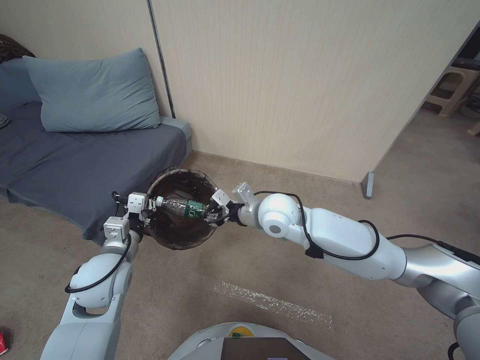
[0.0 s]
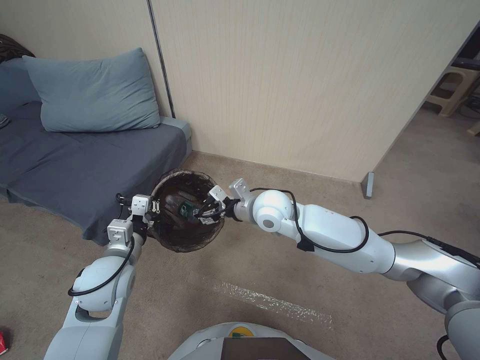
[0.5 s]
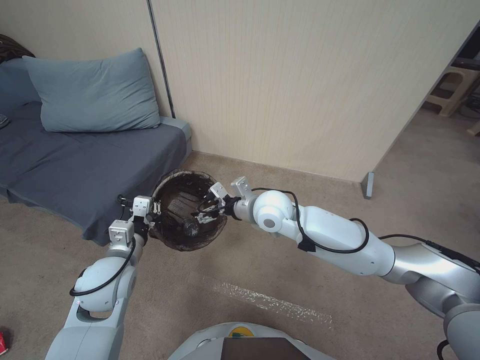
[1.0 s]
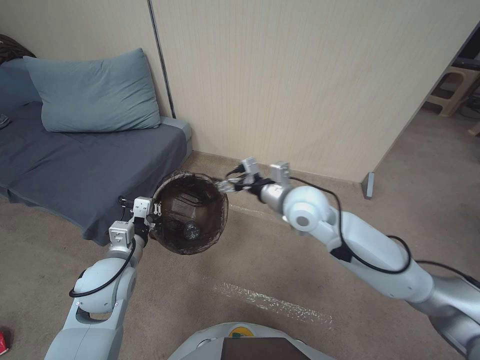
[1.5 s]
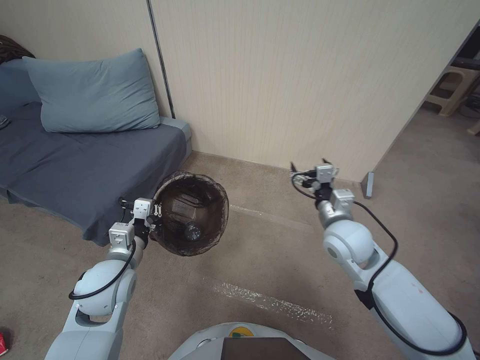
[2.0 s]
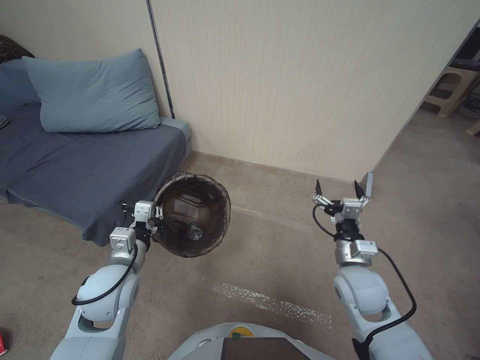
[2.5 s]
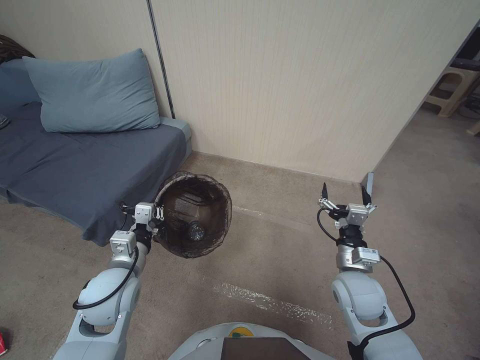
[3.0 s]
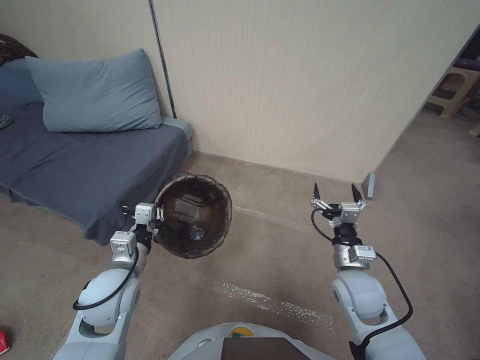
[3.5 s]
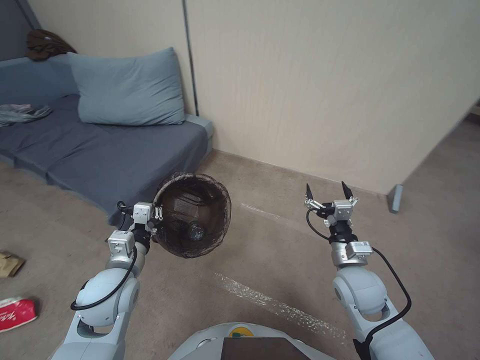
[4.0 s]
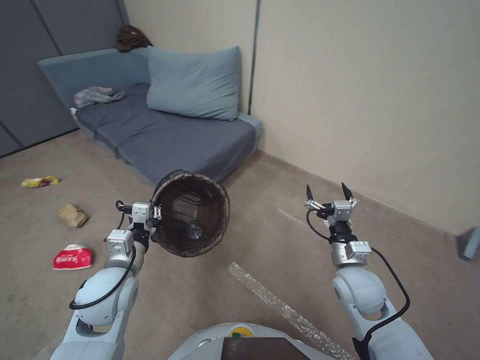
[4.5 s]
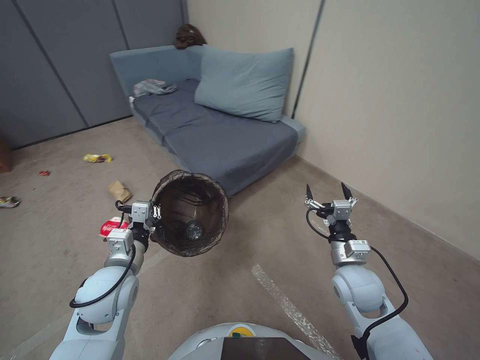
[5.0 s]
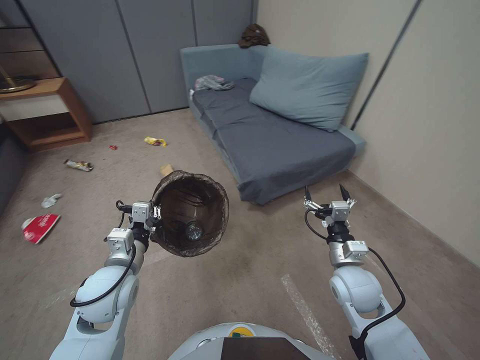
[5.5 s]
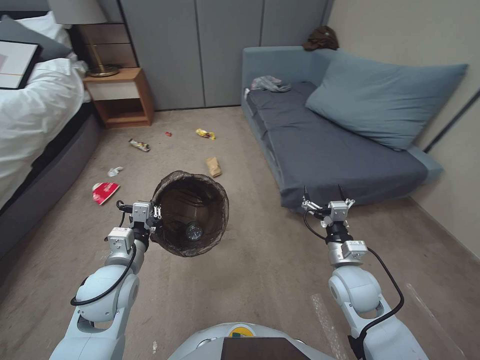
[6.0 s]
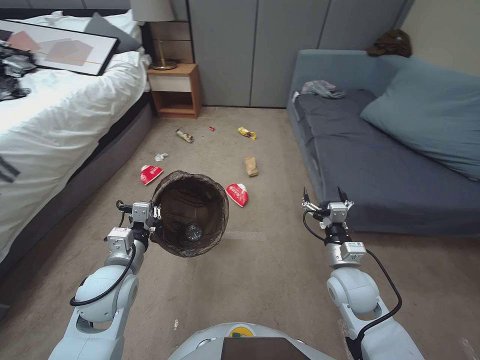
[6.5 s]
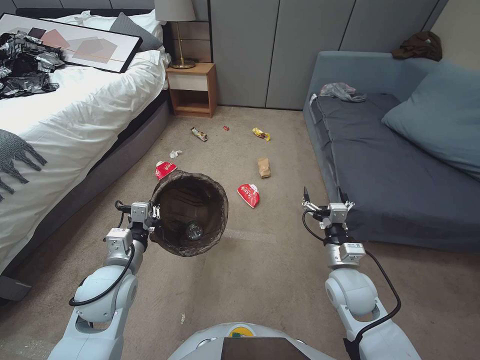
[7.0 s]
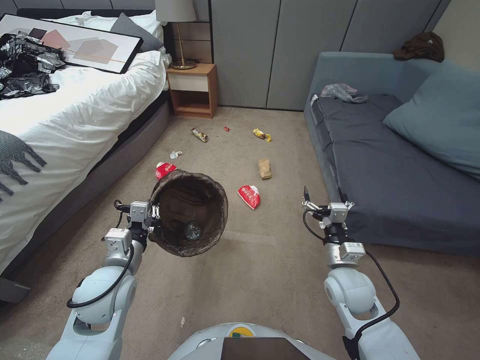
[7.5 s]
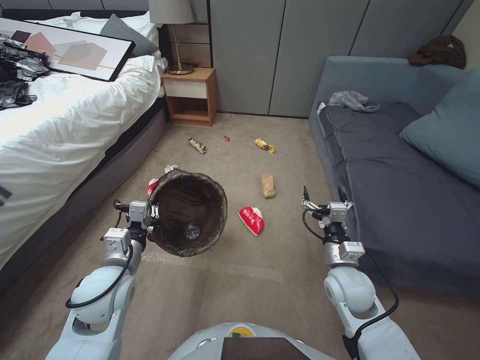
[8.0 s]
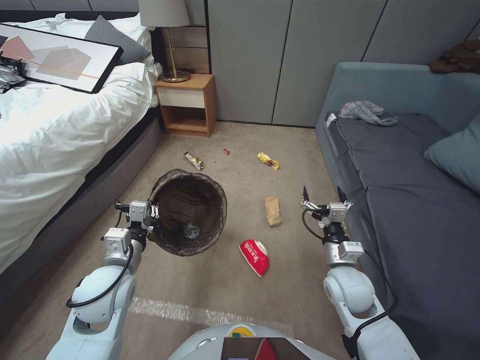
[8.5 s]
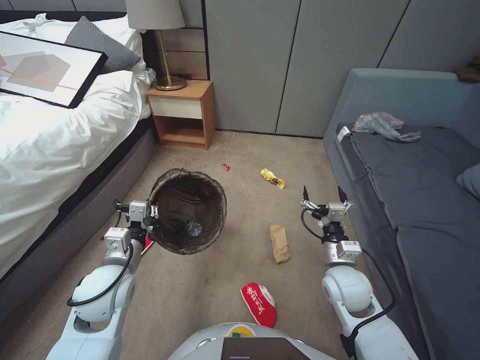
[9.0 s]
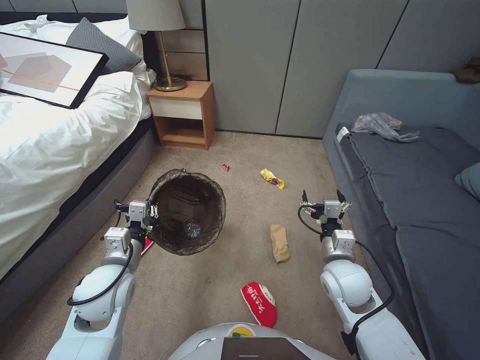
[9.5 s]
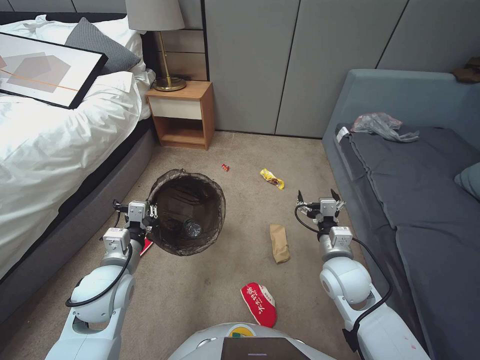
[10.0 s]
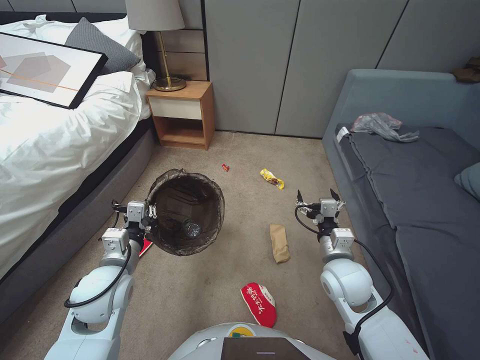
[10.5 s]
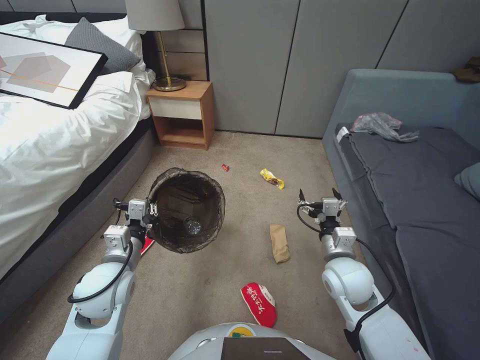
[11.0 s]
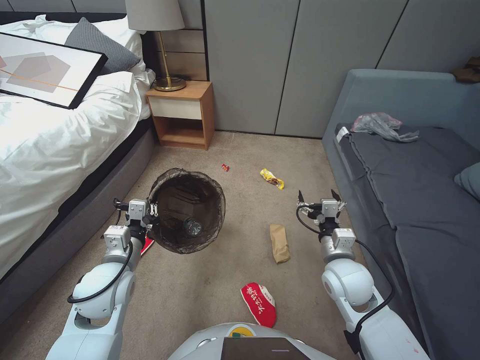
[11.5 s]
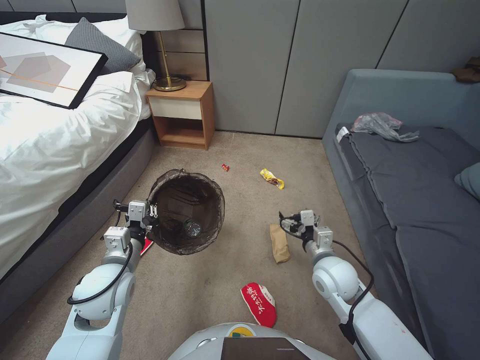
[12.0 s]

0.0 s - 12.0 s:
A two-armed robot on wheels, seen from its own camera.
Task of the whole recording: Pick up the trash bin, then pick up the garbage from the floor and place it into the trash bin.
0.0 s - 2.0 s: The right gripper moves to the right, approximately 15 cm, and opens.
2.0 s - 4.0 s: The right gripper goes about 10 cm downward and backward.
10.0 s - 12.0 s: Both grippers stay about where they are.

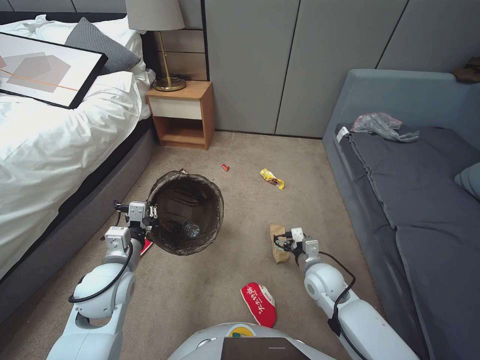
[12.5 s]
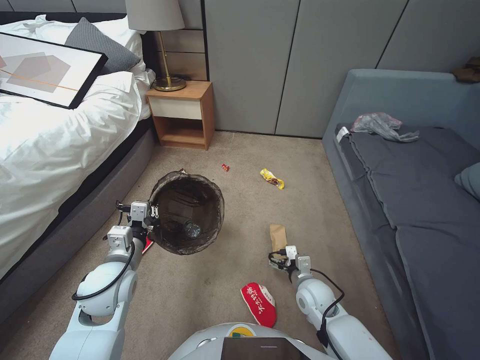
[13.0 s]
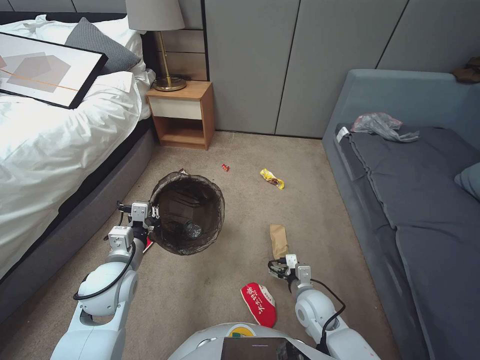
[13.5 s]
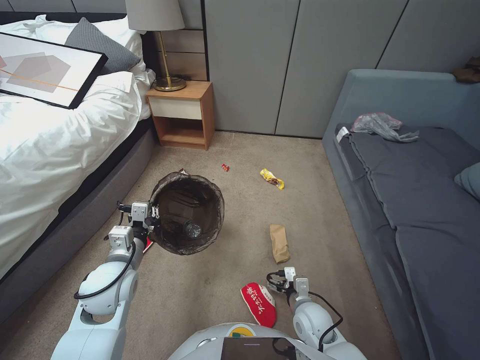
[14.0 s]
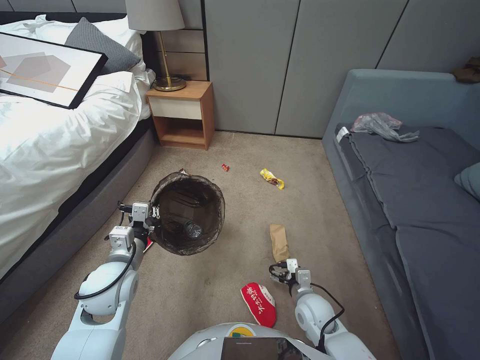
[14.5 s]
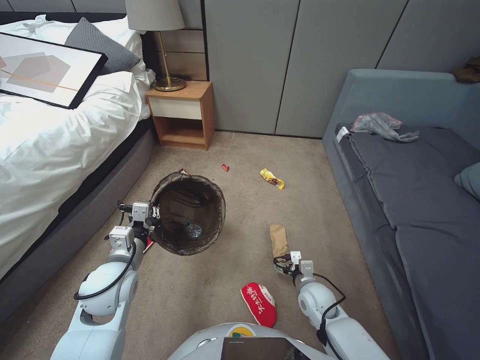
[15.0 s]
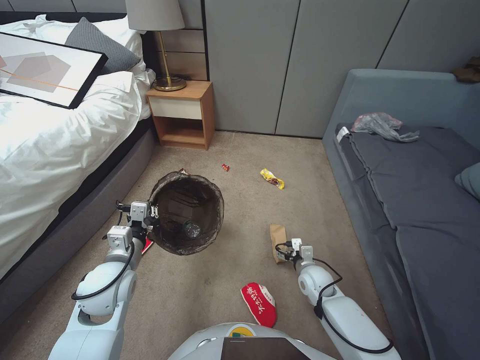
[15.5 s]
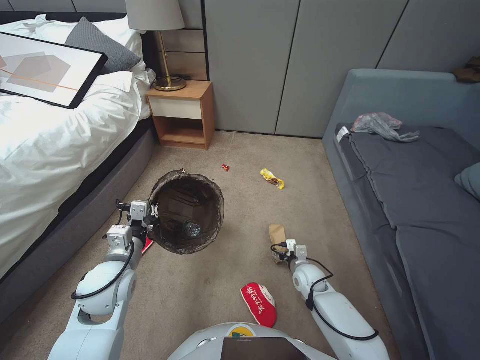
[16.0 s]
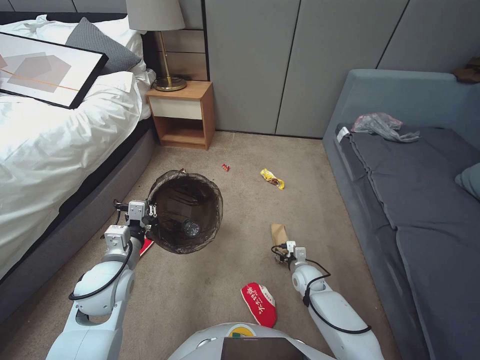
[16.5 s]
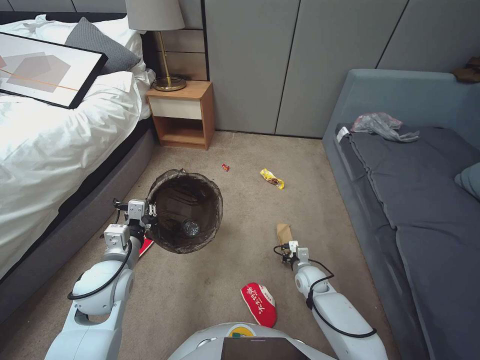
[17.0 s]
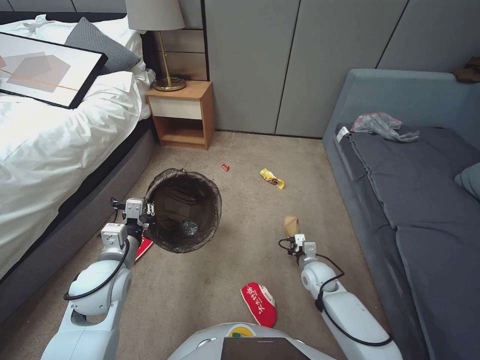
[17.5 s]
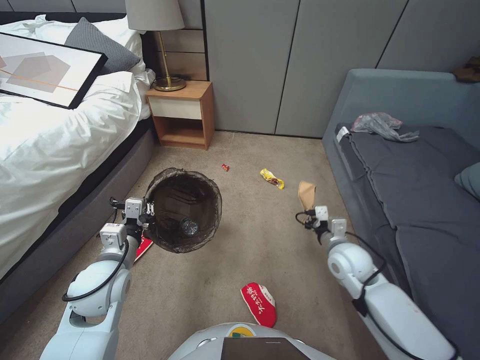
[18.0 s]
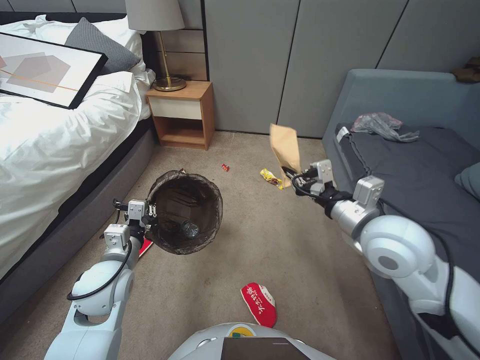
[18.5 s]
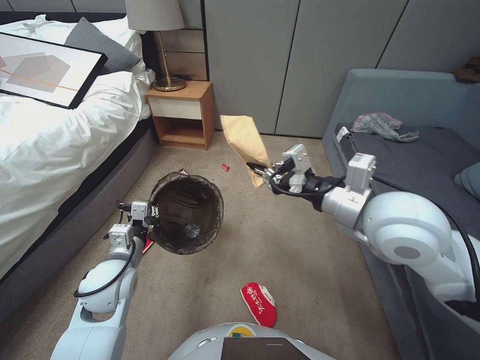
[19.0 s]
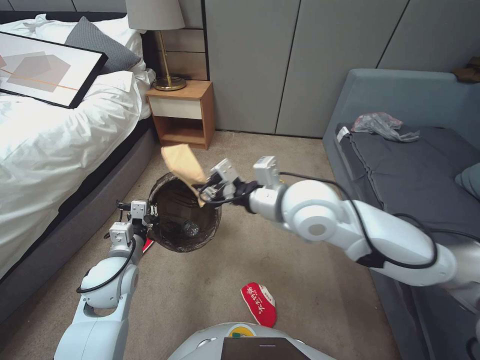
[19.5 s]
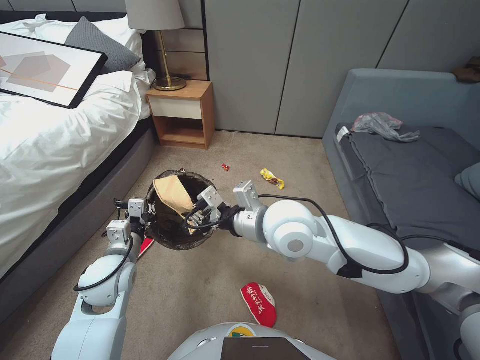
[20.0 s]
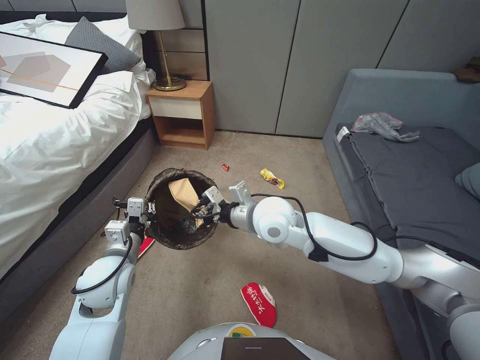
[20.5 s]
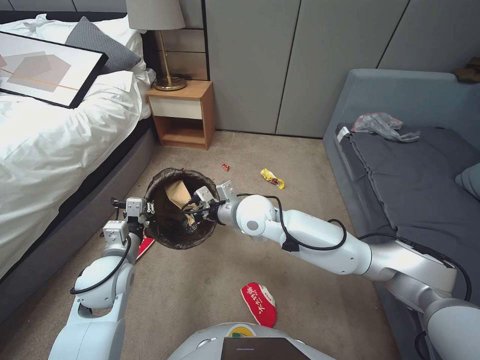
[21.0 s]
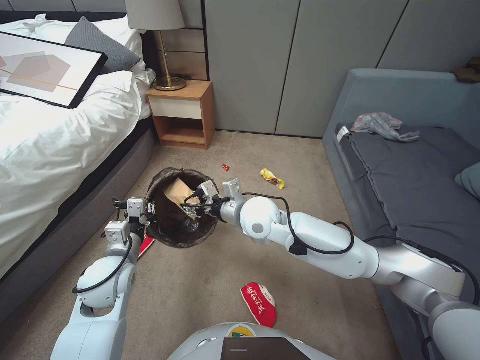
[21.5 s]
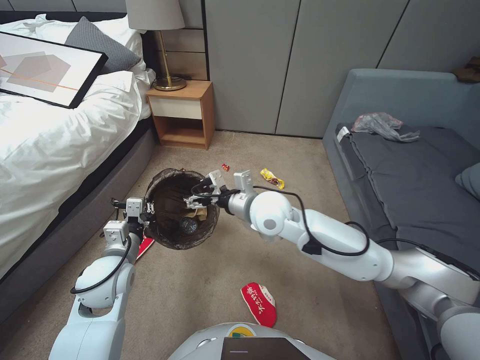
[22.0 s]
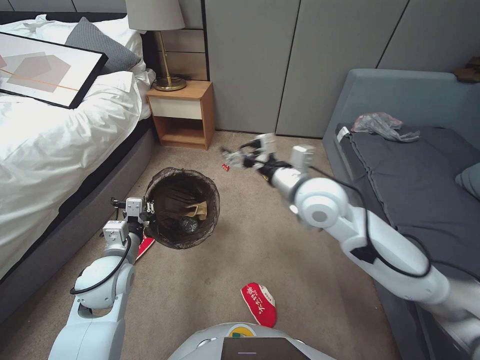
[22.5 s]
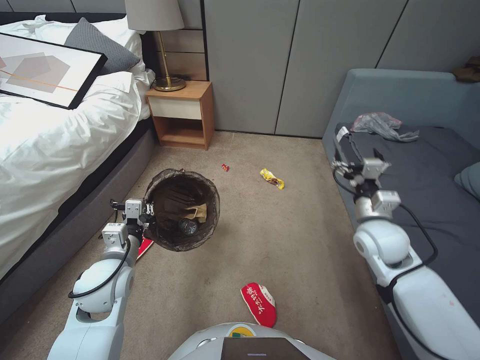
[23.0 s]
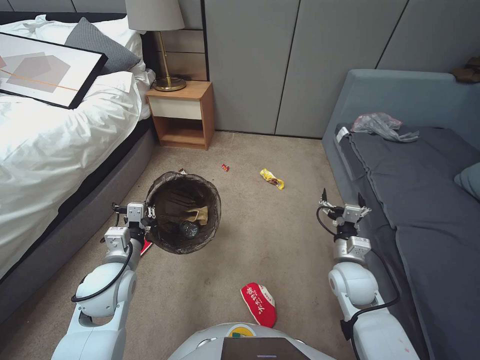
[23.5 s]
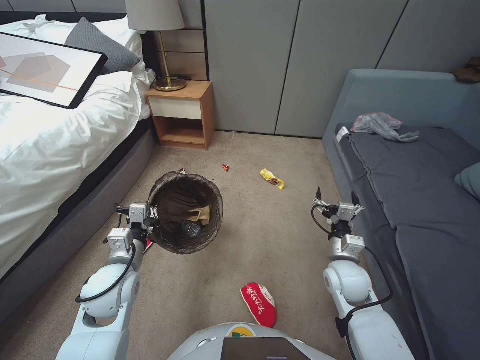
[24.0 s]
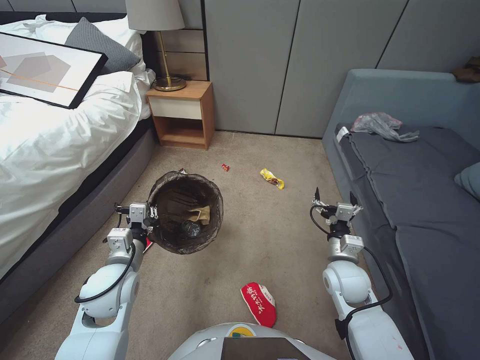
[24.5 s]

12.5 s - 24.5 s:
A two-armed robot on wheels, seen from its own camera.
Task of the whole recording: Pick up the trash bin, then pick up the garbage from the floor and place it into the trash bin.
12.5 s - 14.5 s: The right gripper shifts some 10 cm downward and backward.
14.5 s - 16.5 s: The right gripper heads forward and downward, covering about 15 cm.
16.5 s - 18.5 s: The right gripper heads upward, covering roughly 40 cm, and closes up.
18.5 s - 20.5 s: The right gripper goes approximately 20 cm to the left.
20.5 s - 22.5 s: The right gripper shifts about 10 cm to the right and upward, and opens up.
22.5 s - 24.5 s: The right gripper is displaced downward and to the right by some 25 cm.

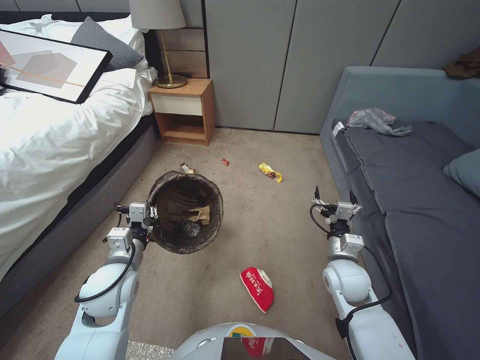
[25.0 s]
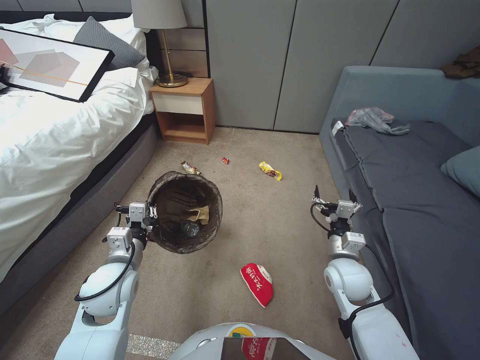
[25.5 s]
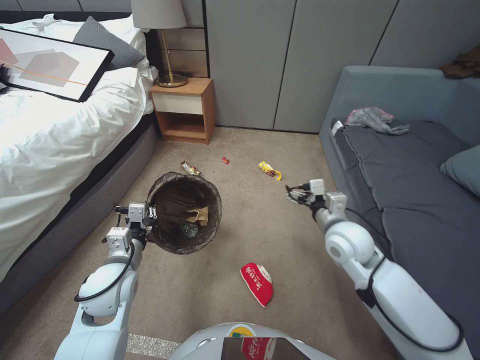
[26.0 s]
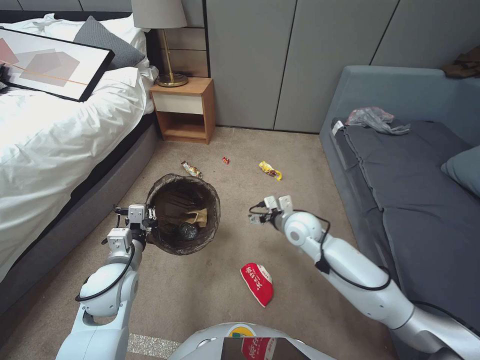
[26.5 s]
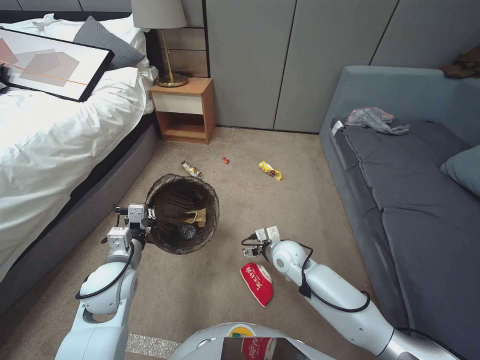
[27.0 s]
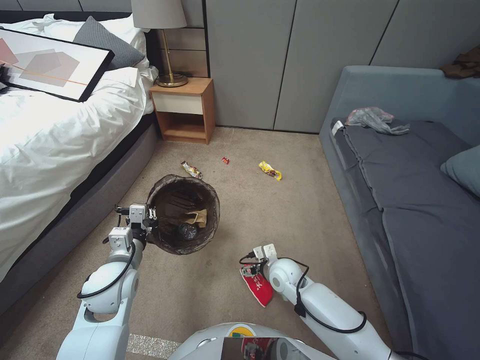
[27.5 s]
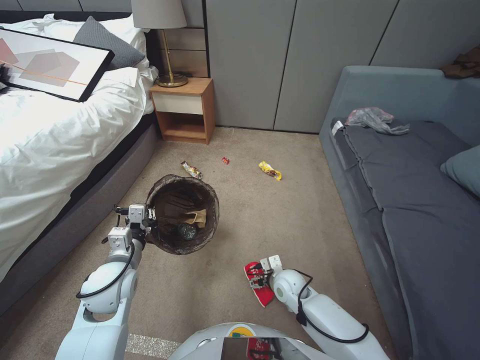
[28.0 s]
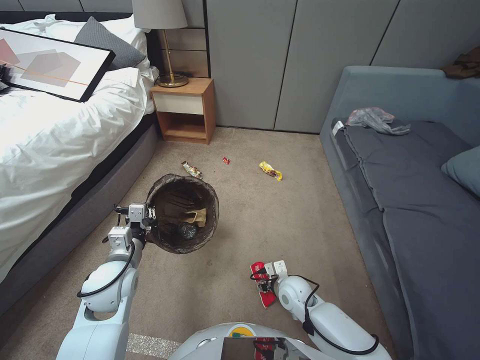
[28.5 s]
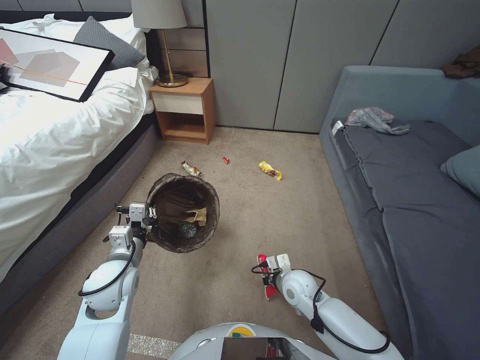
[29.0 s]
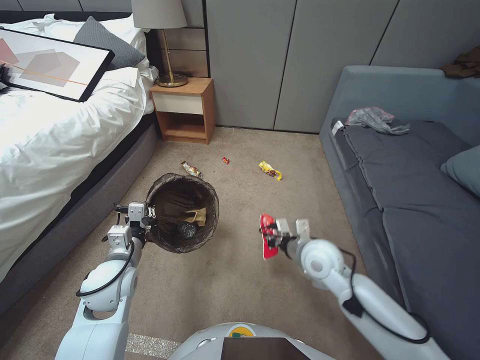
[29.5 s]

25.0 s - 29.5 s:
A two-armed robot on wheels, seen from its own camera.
Task of the whole recording: Pick up the trash bin, then pick up the garbage from the floor and place it into the trash bin.
25.0 s - 27.0 s: The right gripper is displaced to the left and forward by roughly 15 cm.
27.0 s - 29.5 s: The right gripper is displaced upward and backward by roughly 10 cm, and closes.
